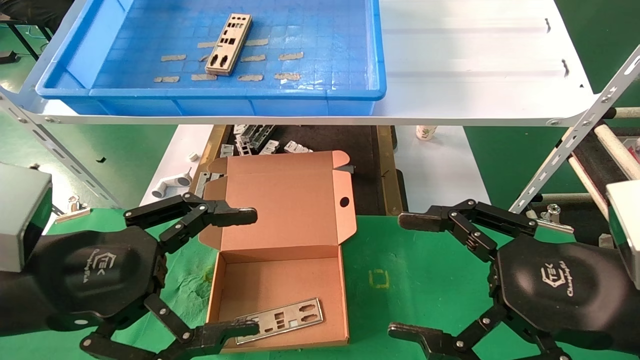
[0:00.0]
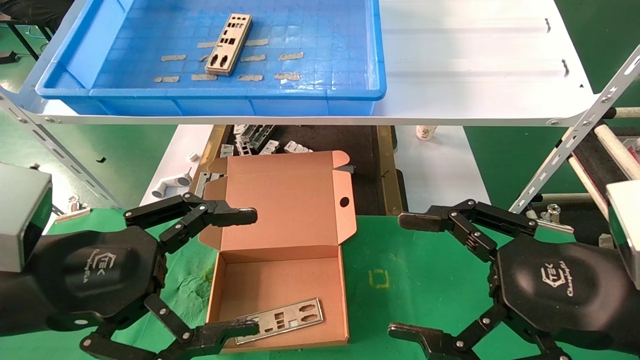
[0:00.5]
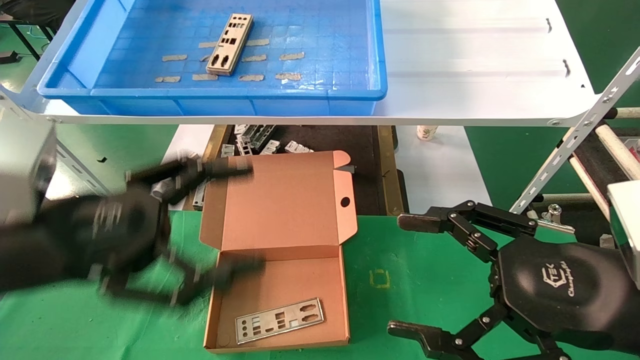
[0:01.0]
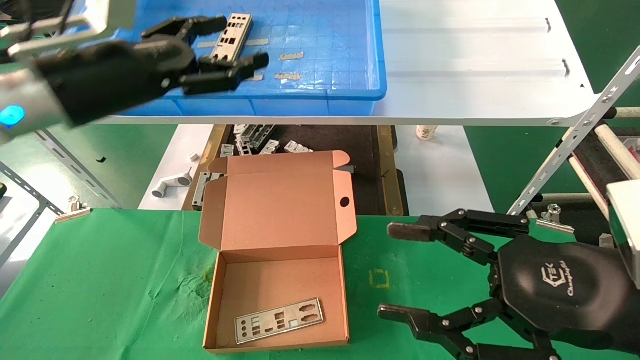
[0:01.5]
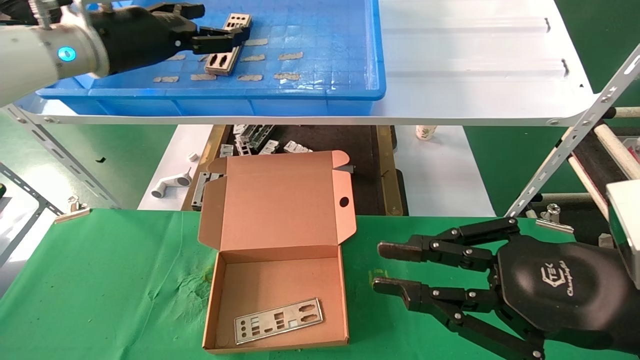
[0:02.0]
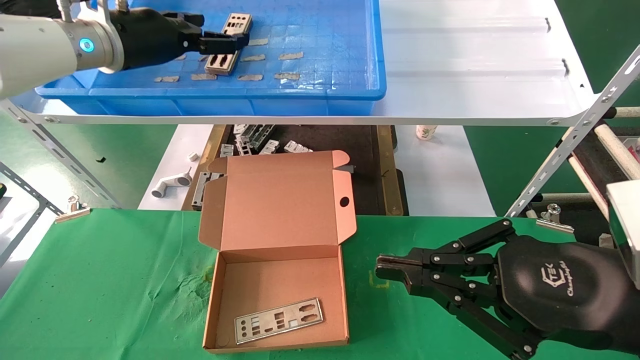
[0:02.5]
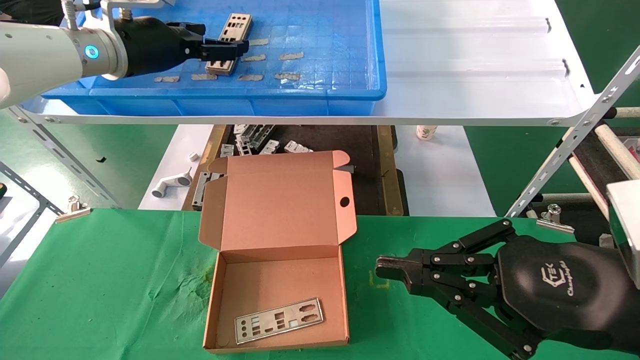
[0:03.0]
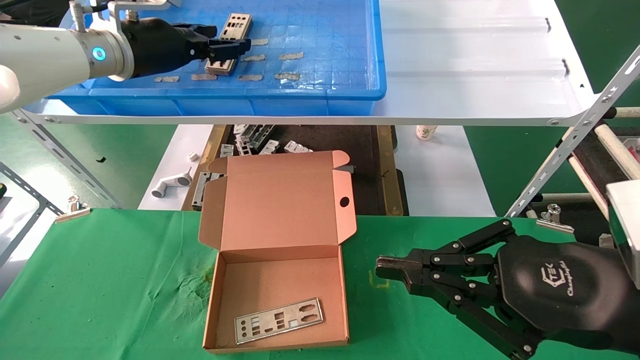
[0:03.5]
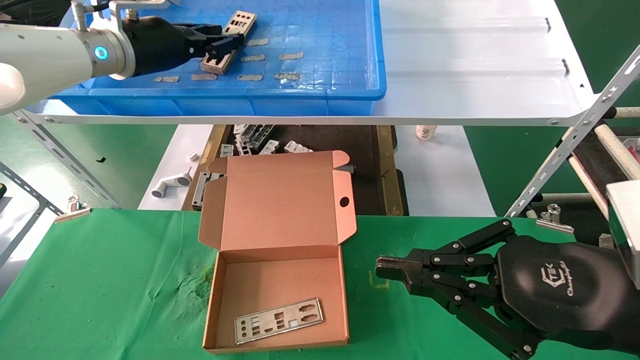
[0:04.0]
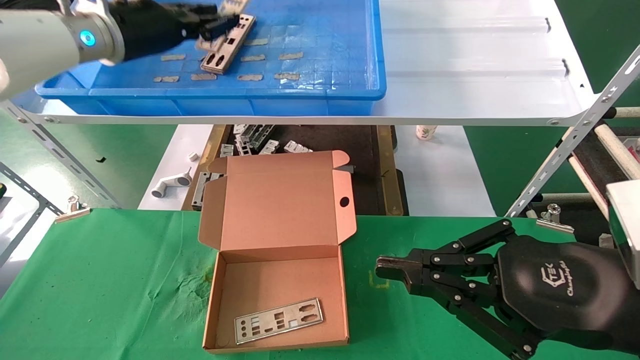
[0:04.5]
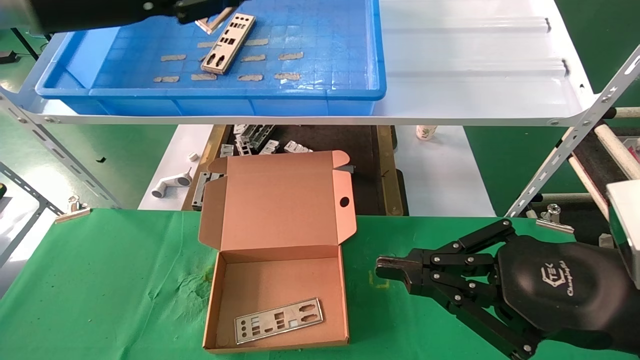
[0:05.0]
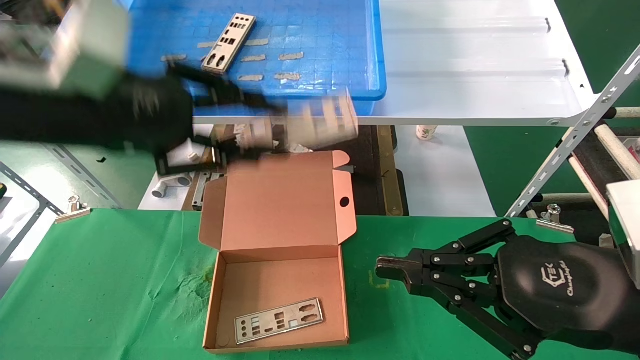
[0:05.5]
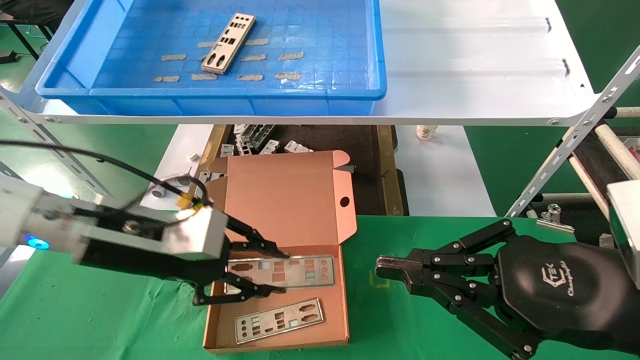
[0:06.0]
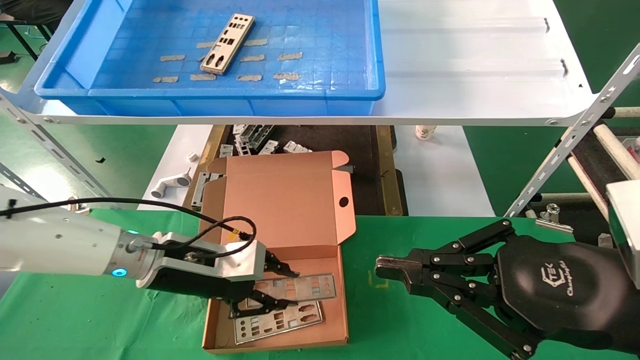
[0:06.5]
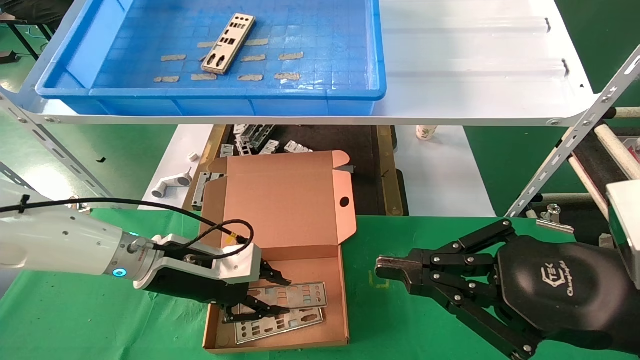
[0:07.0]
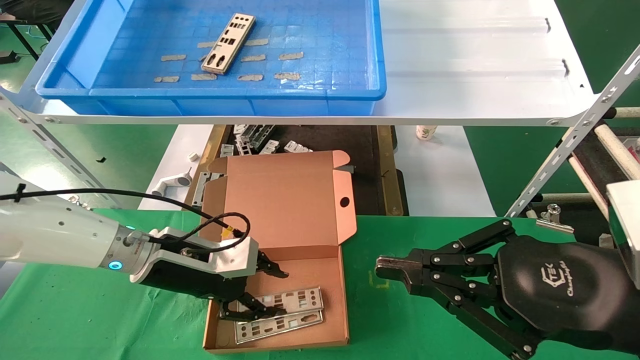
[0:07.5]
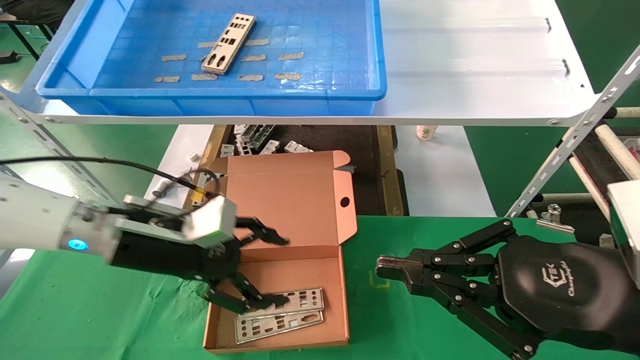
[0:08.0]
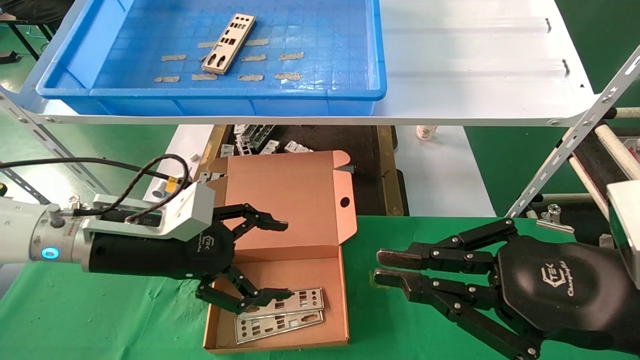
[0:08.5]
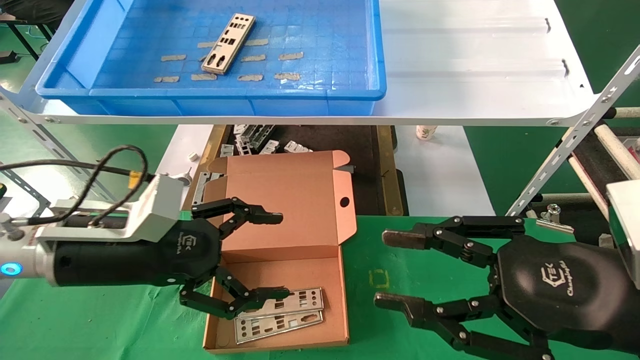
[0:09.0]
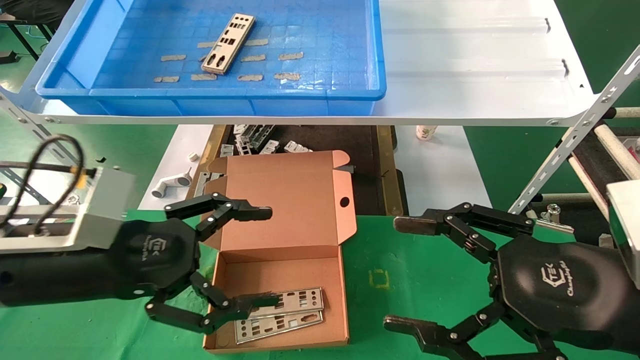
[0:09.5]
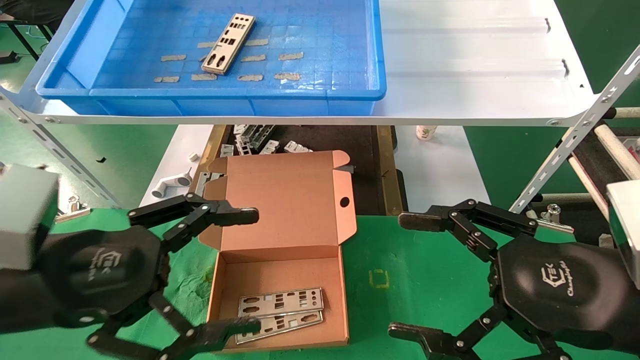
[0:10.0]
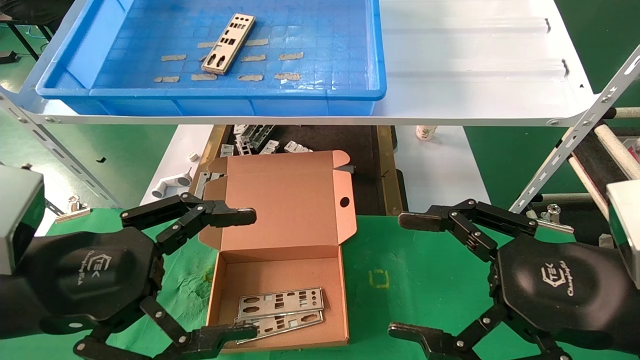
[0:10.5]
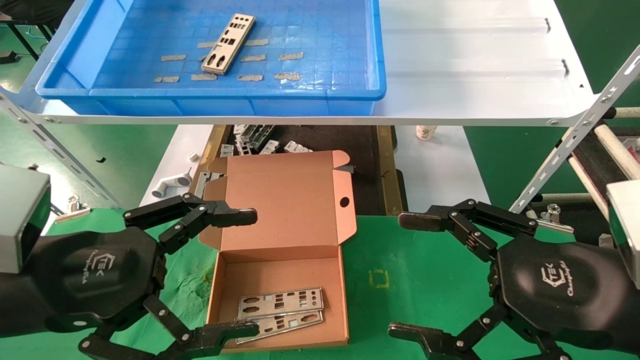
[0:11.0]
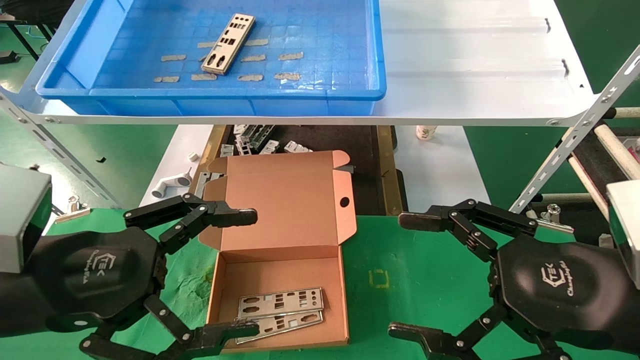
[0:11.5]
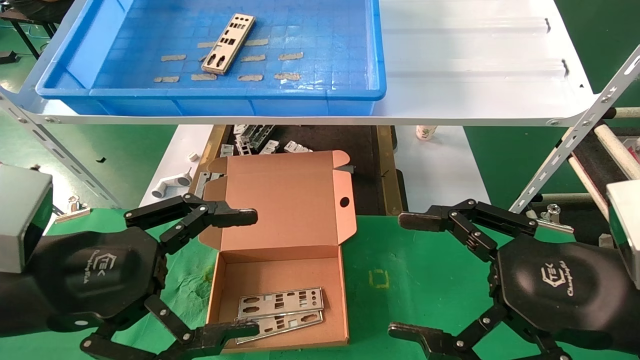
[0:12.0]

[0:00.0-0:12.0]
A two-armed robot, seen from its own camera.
Task of the whole recording: pick up the parts on the tray and put them in the cardboard box.
Step, 0:01.5 to 0:04.5: Pick up the IO bracket from the container box.
Step, 0:05.0 to 0:07.0: Place the IO bracket into the ingredient slot.
0:00.0 to 0:02.0: The right gripper closes; the left gripper travels forward and upward by approximately 30 cm.
0:02.0 to 0:04.0: The left gripper closes up.
0:04.0 to 0:06.0: The left gripper travels downward and backward by approximately 25 cm.
0:06.0 to 0:08.0: The left gripper opens.
0:08.0 to 0:10.0: The right gripper opens. Meanwhile the left gripper travels backward by approximately 15 cm.
0:10.0 to 0:12.0: Both grippers stay about where they are.

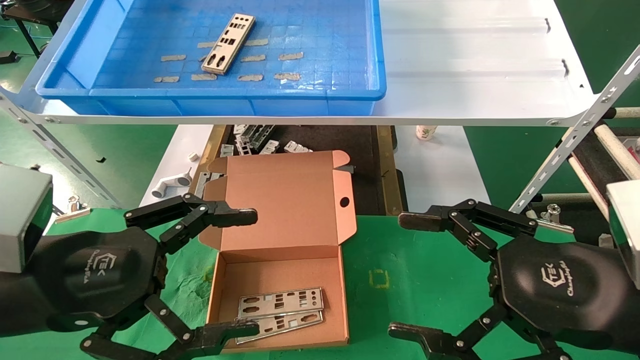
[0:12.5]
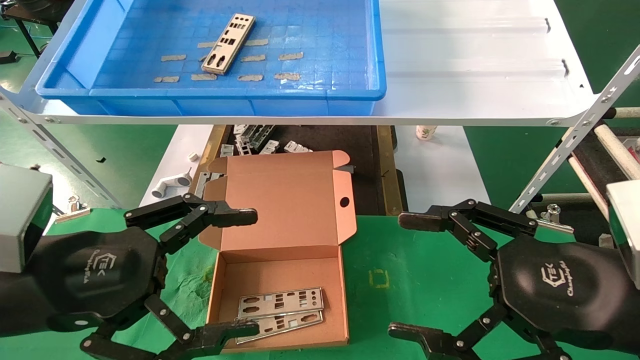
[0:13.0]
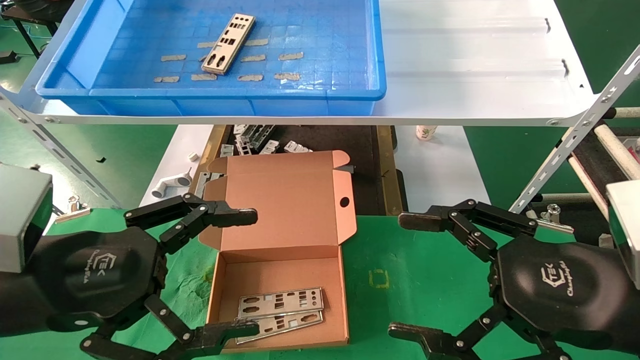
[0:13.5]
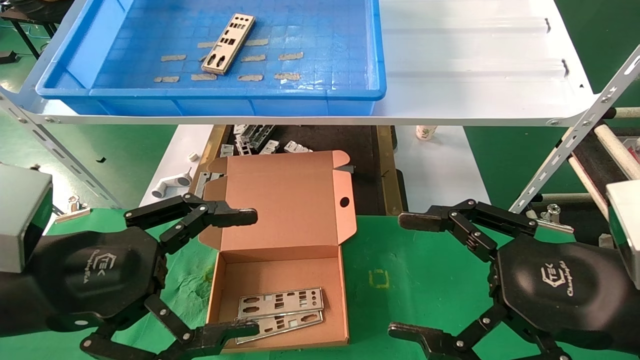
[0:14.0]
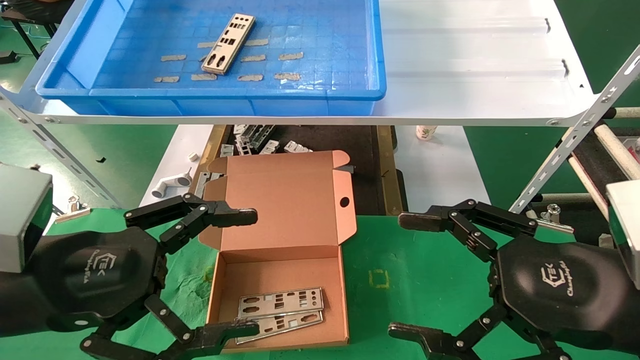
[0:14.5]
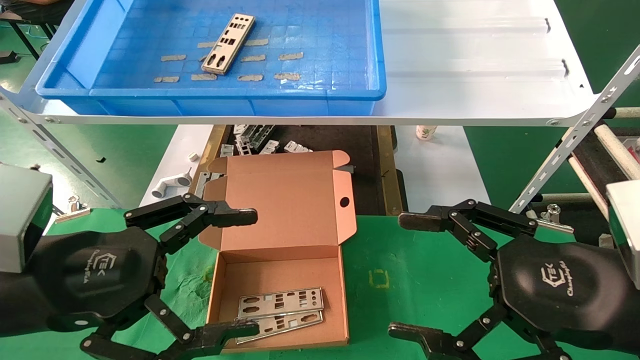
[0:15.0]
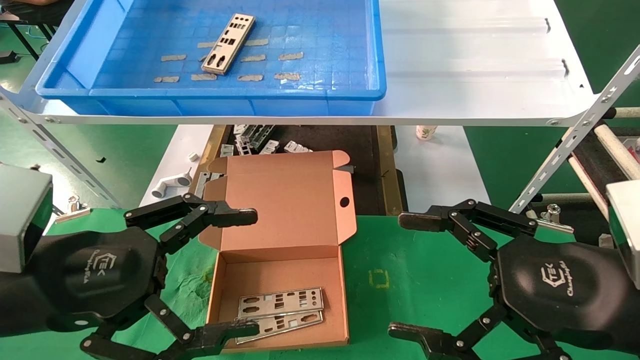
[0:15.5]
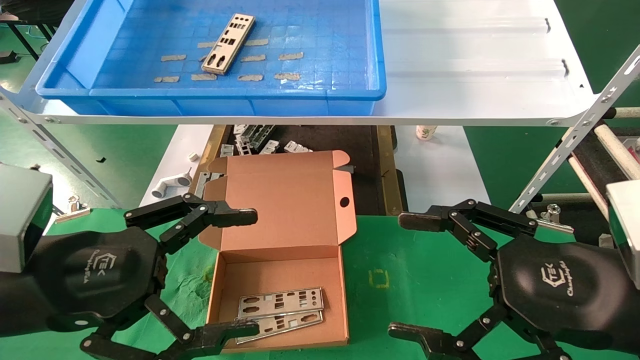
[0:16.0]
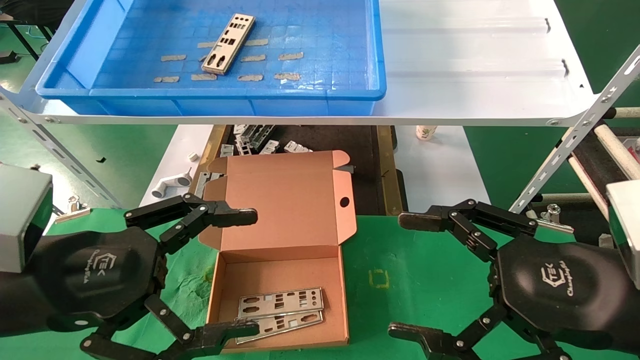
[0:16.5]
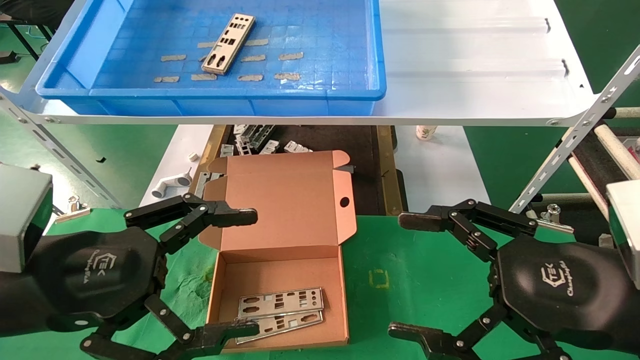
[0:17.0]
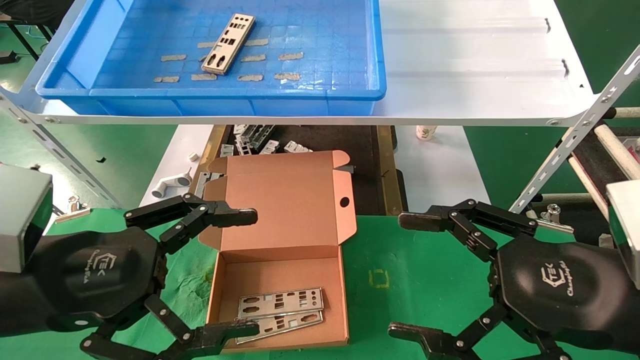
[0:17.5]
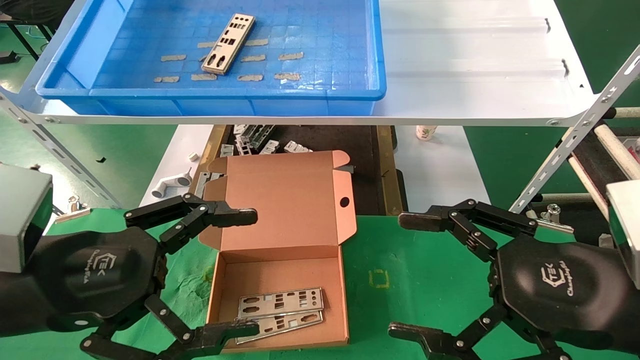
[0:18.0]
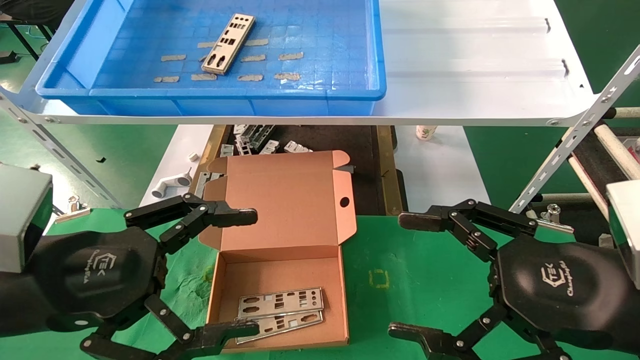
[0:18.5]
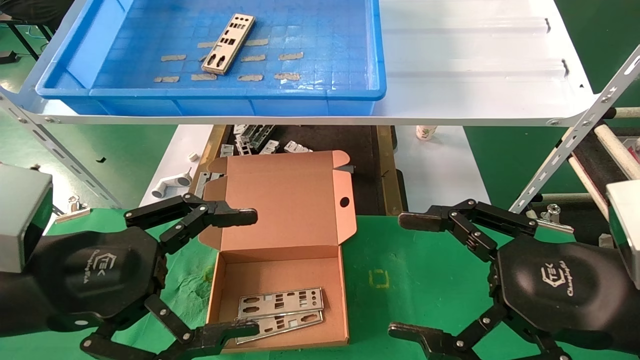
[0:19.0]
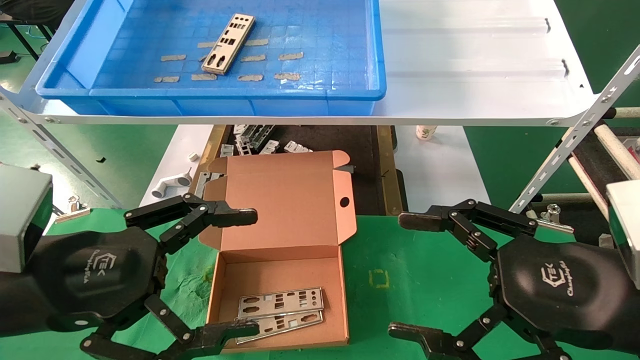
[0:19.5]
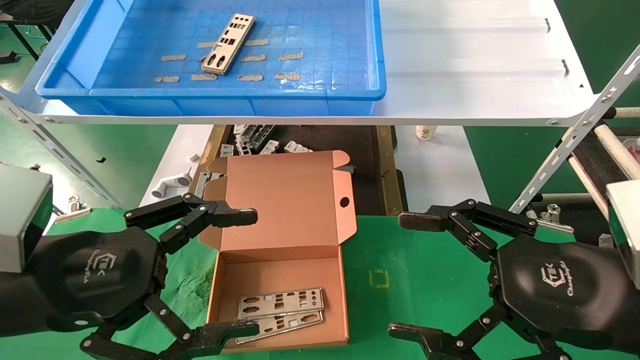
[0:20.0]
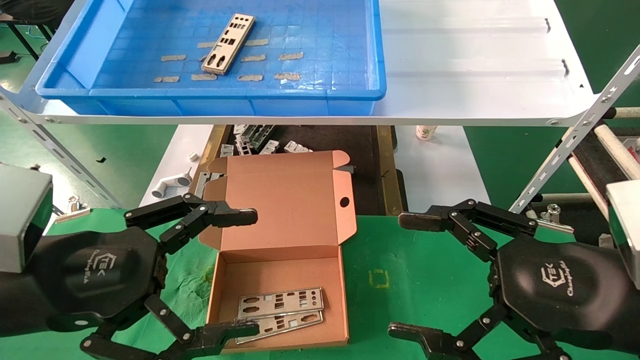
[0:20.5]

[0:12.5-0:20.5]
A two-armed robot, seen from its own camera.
Task of the whole recording: pick up the parts on the tray and put them in the cardboard box.
0:12.5 to 0:20.5: Neither gripper changes place.
